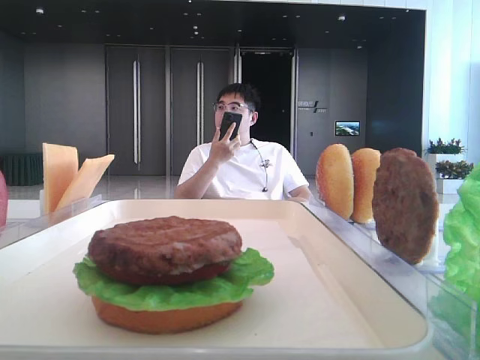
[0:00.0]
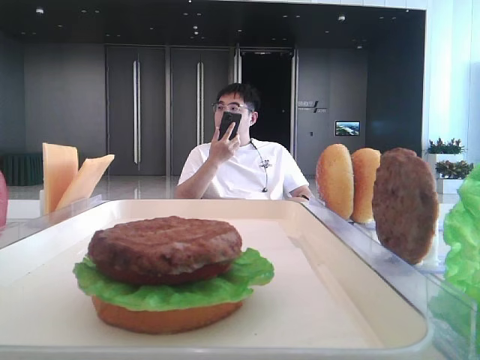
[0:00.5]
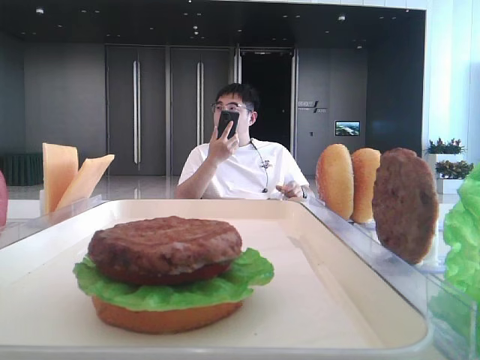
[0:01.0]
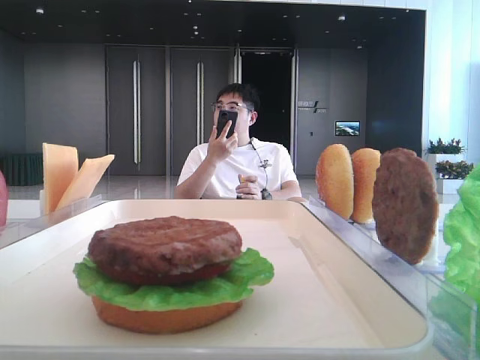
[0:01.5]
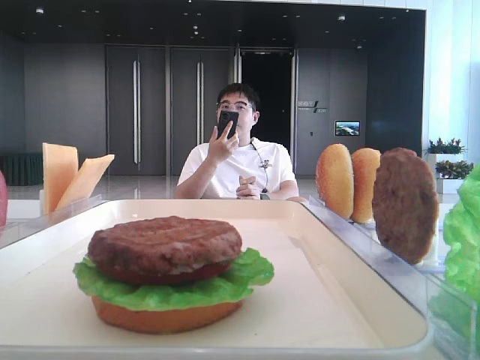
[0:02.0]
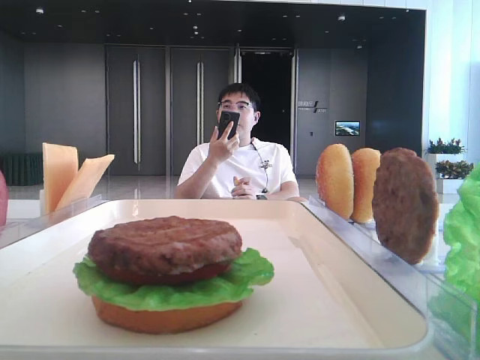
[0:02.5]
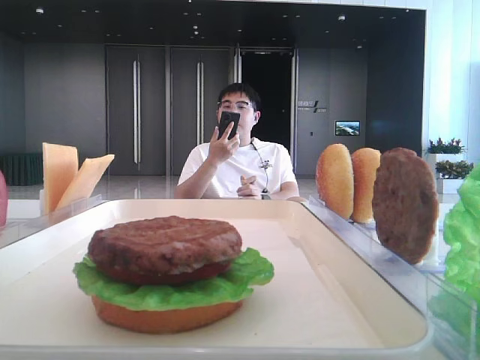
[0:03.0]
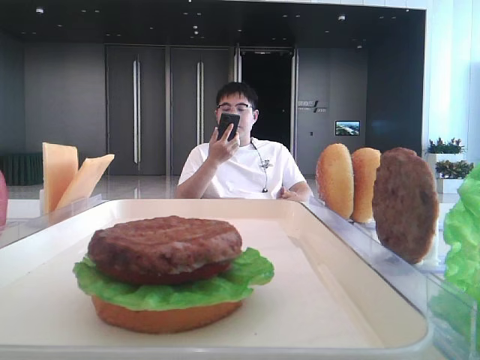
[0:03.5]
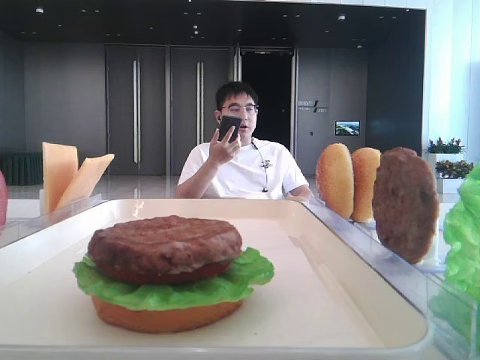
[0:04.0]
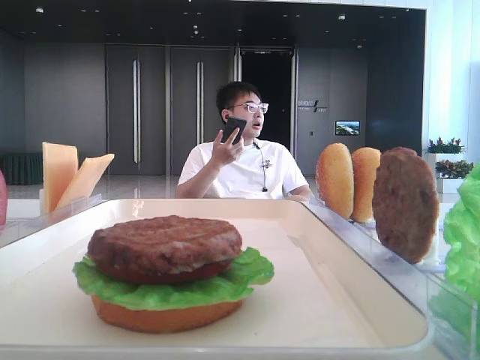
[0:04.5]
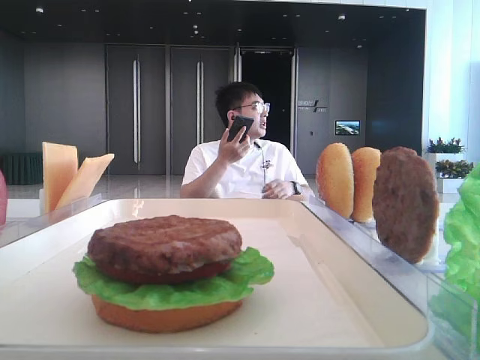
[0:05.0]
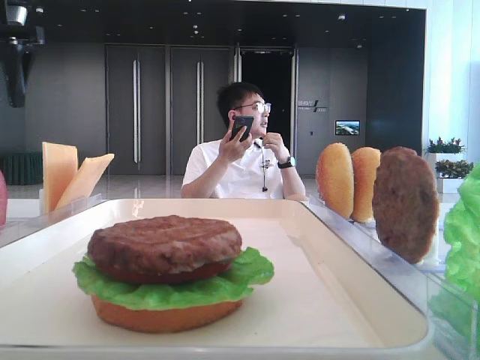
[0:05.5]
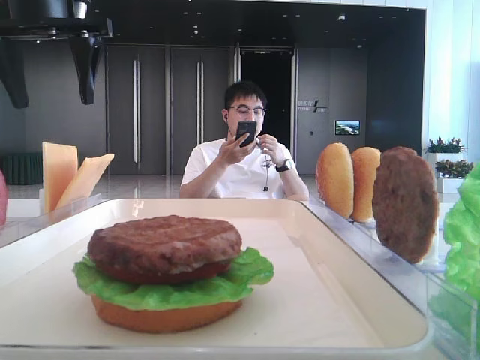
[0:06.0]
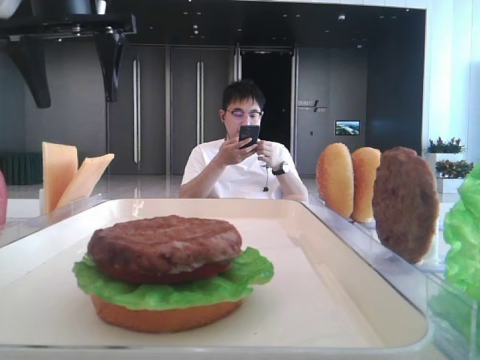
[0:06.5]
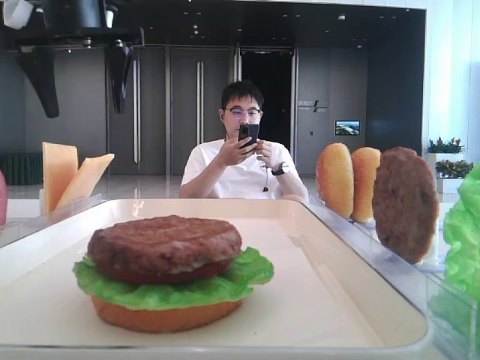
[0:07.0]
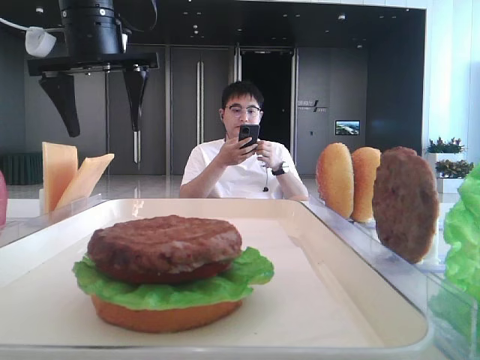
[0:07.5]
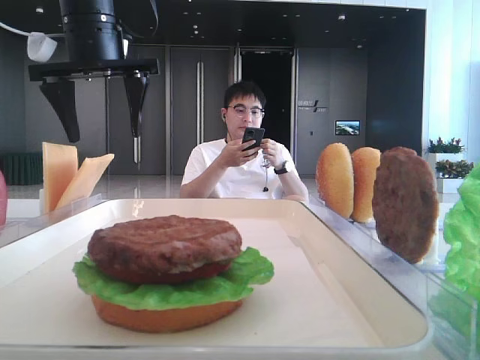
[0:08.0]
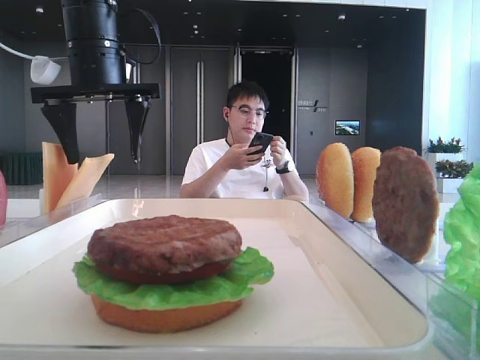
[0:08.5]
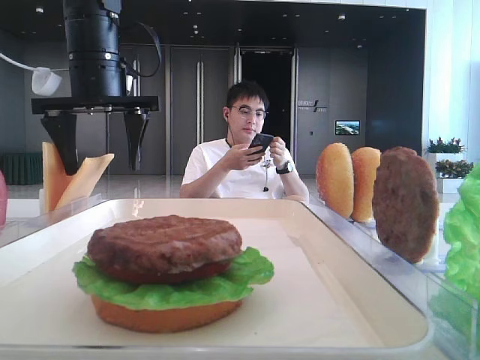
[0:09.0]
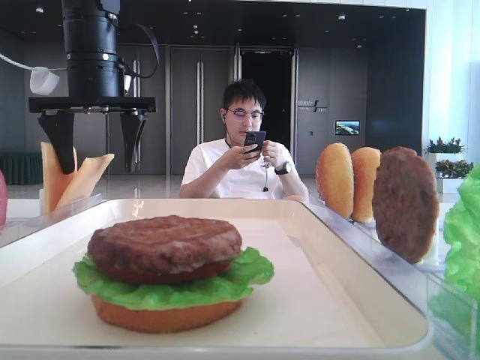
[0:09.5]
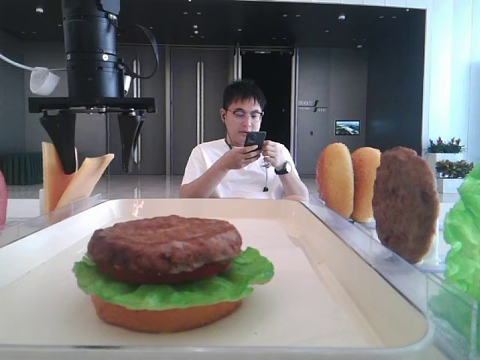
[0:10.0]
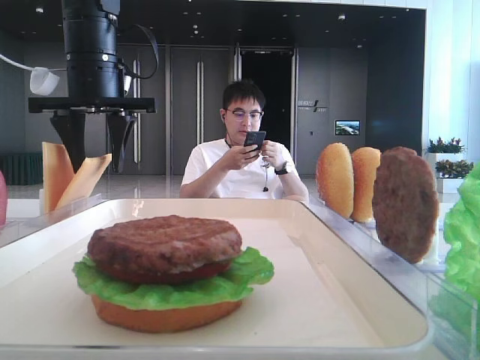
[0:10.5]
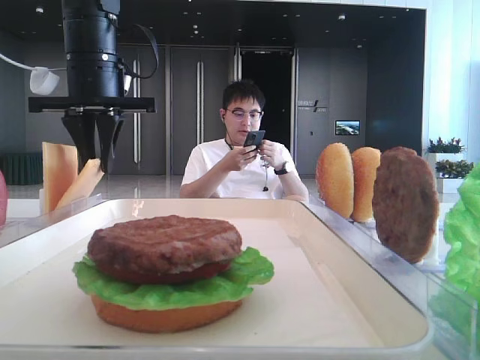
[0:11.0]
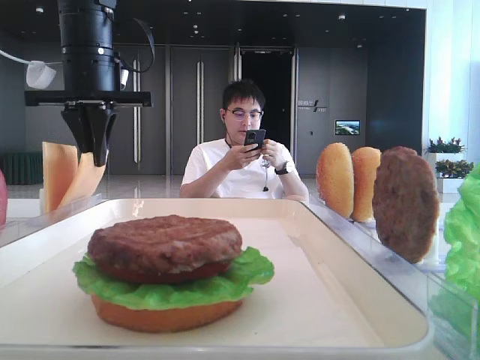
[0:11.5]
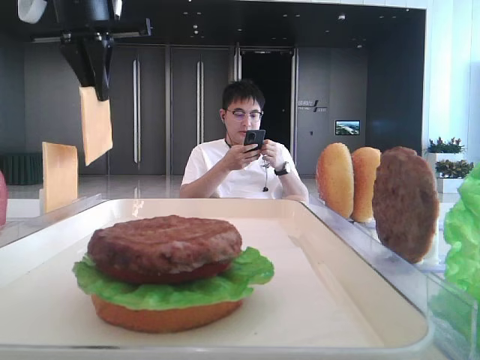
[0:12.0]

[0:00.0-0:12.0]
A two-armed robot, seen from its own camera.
Step, 0:00.0 to 0:11.0: Pick up the cheese slice with the left hand.
0:02.0 to 0:04.0: The left gripper moves forward, about 25 cm.
0:04.0 to 0:06.0: The left gripper heads forward and to the right, covering roughly 20 cm.
0:06.0 to 0:08.0: The left gripper moves approximately 5 cm.
0:08.0 to 0:10.0: There are only small adjustments of the grippers.
0:10.0 to 0:12.0: The left gripper heads upward, covering roughly 10 cm, and closes.

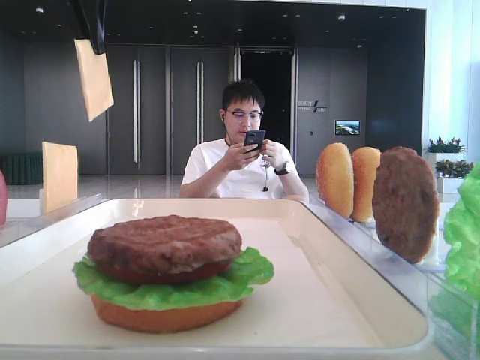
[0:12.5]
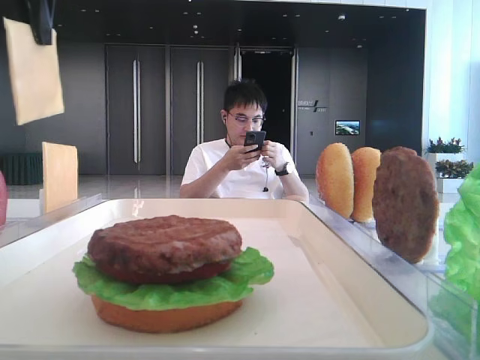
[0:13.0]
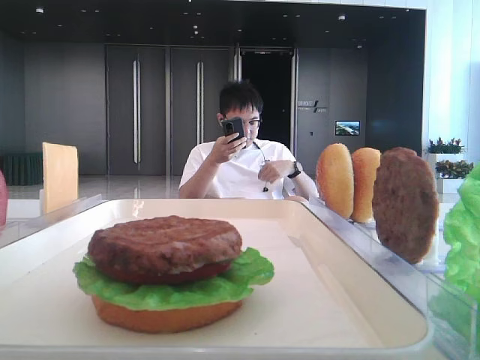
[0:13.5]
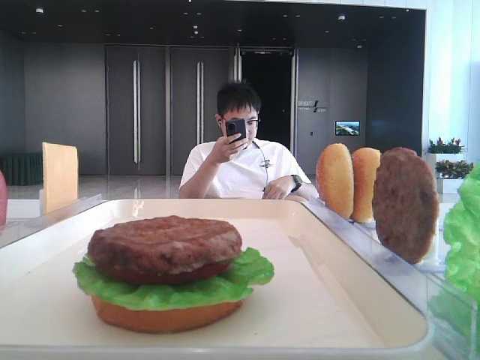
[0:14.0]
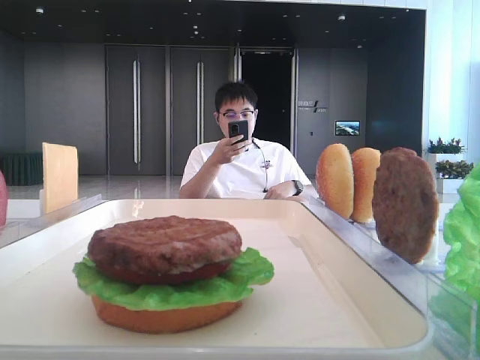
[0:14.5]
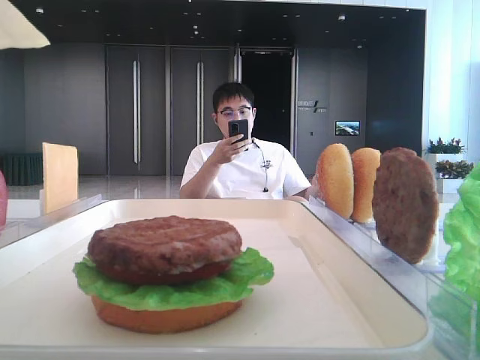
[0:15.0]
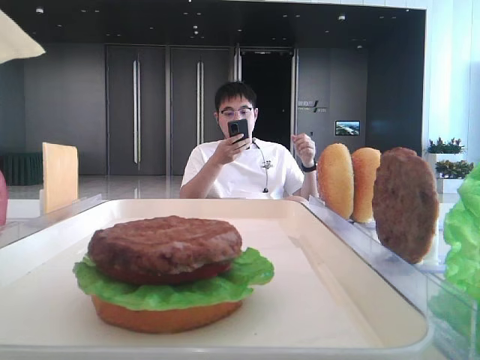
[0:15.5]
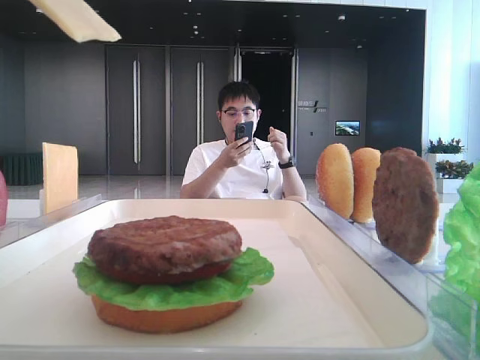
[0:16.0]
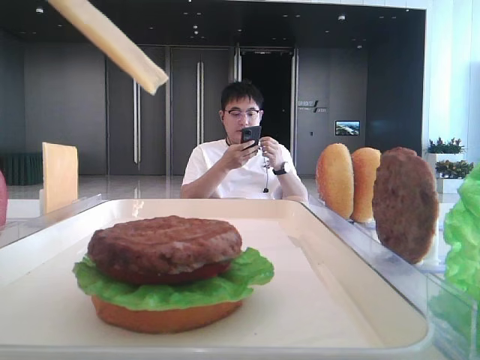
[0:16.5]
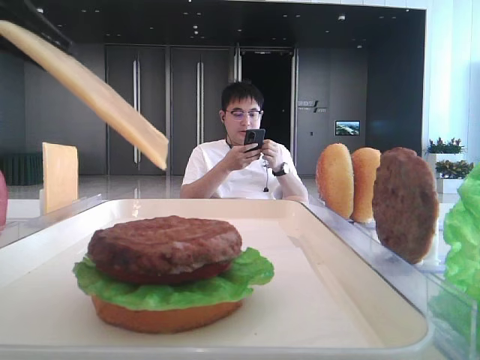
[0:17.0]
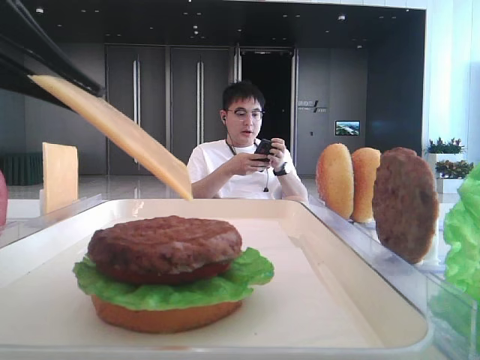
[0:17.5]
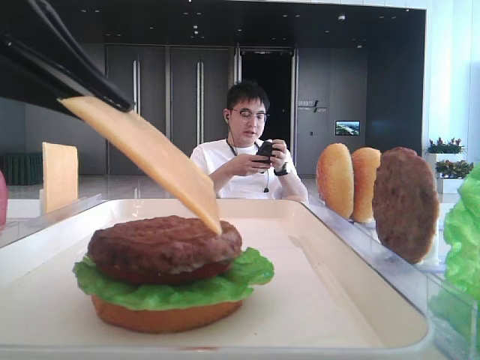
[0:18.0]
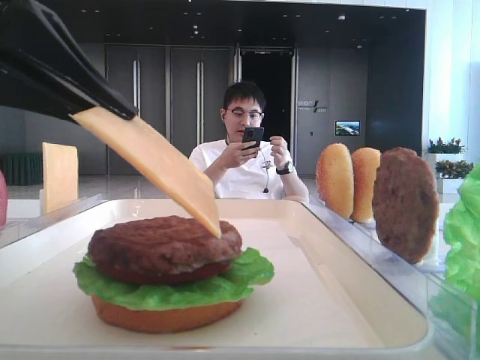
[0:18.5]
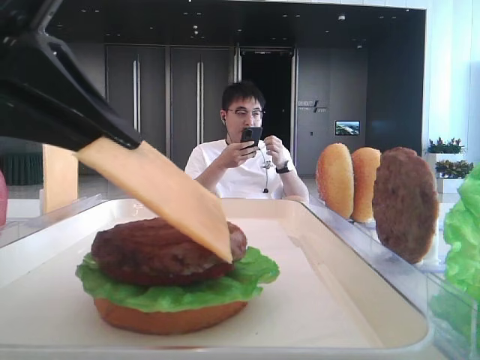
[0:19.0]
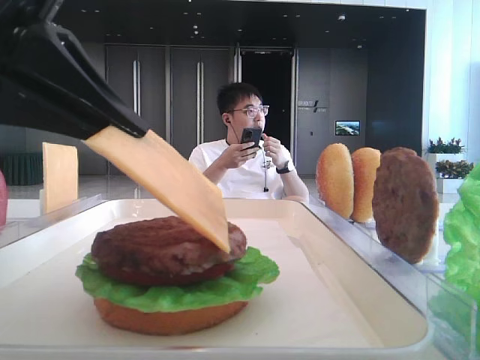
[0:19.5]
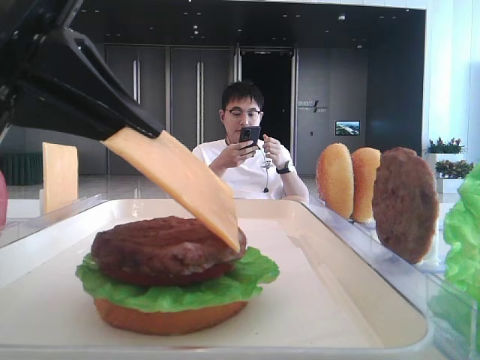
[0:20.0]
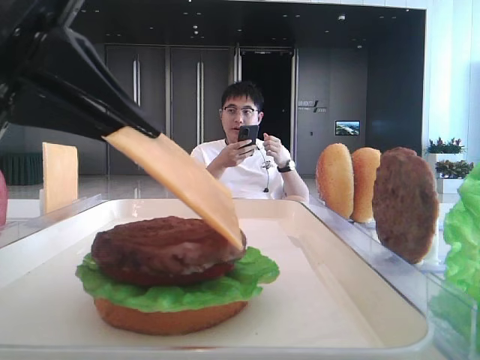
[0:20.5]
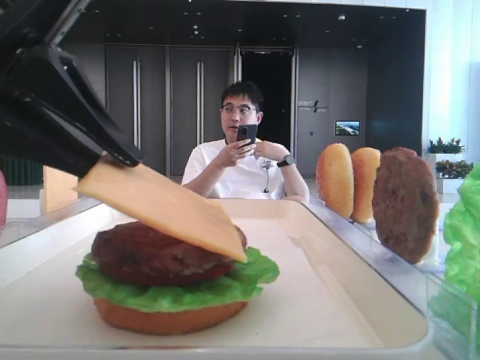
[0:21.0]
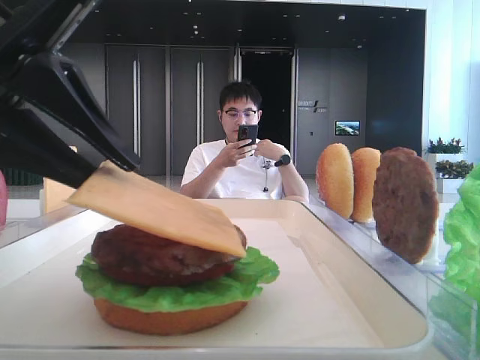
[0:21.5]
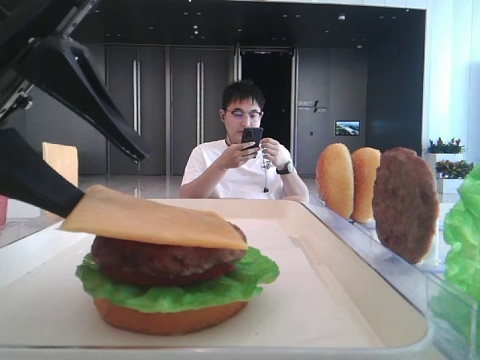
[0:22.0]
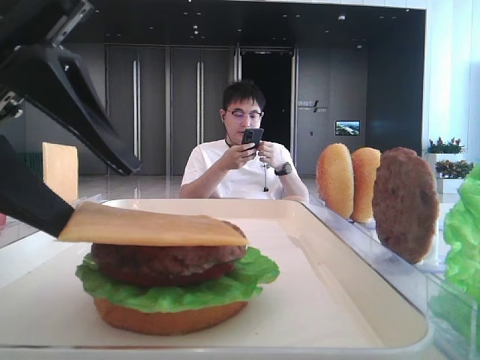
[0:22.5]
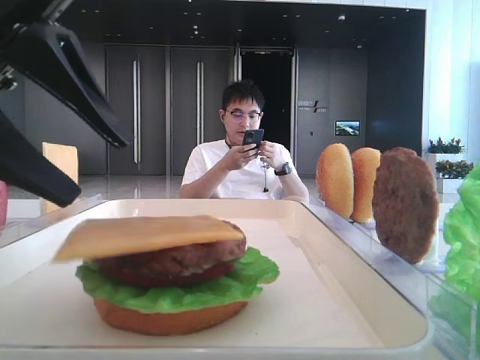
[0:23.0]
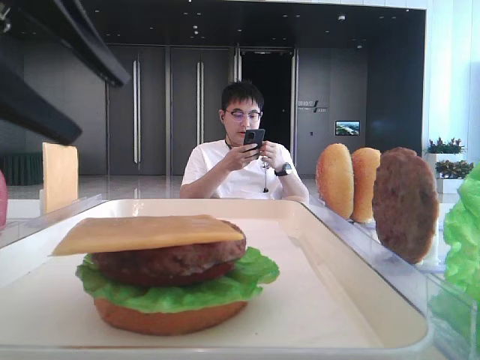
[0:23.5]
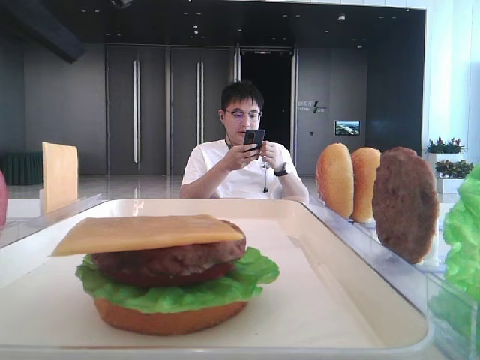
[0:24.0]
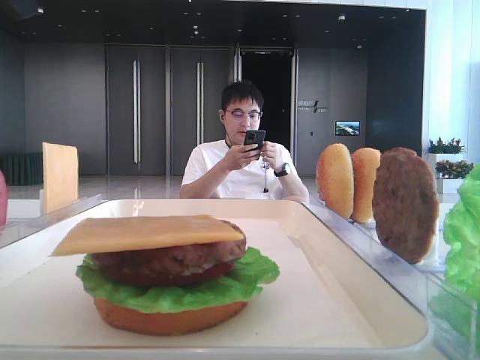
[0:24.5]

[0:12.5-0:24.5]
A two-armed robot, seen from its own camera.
Step, 0:12.5 to 0:22.5: Place the cheese slice on the patty with the left hand.
0:12.5 to 0:14.5: The left gripper goes about 25 cm backward.
0:14.5 to 0:16.5: The left gripper travels downward by roughly 10 cm.
0:16.5 to 0:18.5: The left gripper travels downward by some 5 cm.
0:18.5 to 0:20.5: The grippers stay close to where they were, moving slightly.
0:20.5 to 0:22.5: The left gripper opens up.
0:22.5 to 0:24.5: The left gripper shifts approximately 15 cm upward.

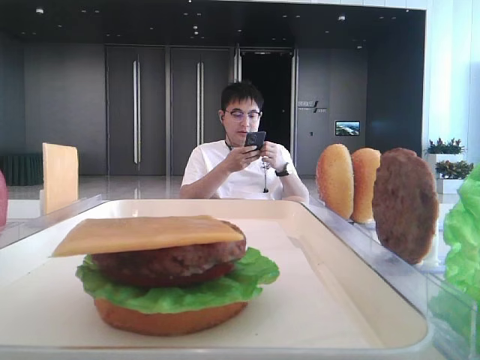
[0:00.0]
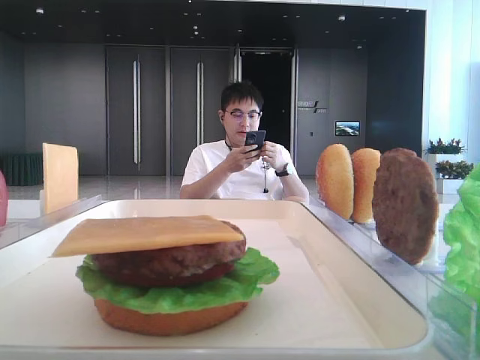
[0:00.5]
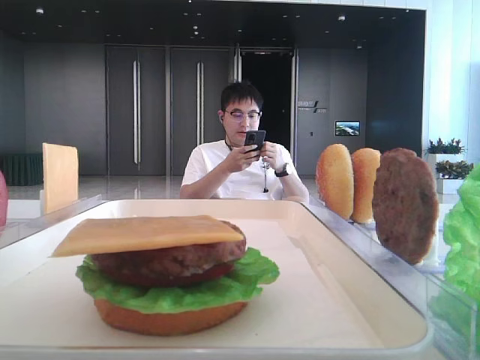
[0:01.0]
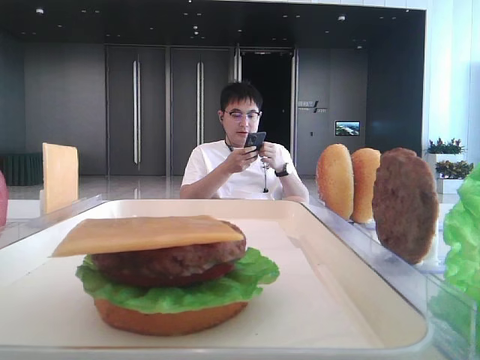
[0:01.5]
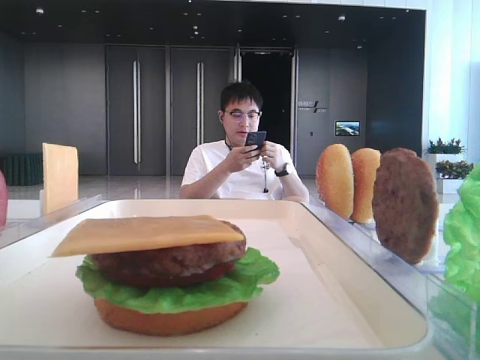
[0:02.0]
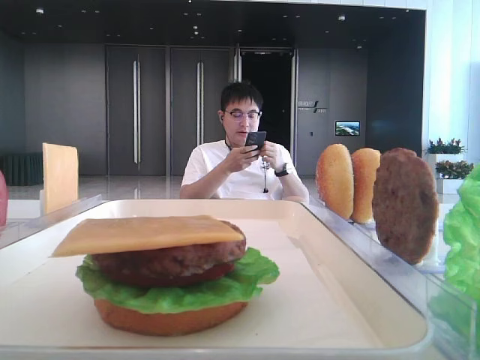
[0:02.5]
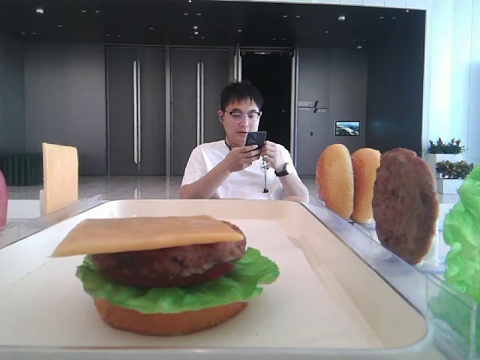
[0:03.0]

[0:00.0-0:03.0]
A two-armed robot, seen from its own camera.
0:01.5 to 0:03.0: Neither gripper changes place.
